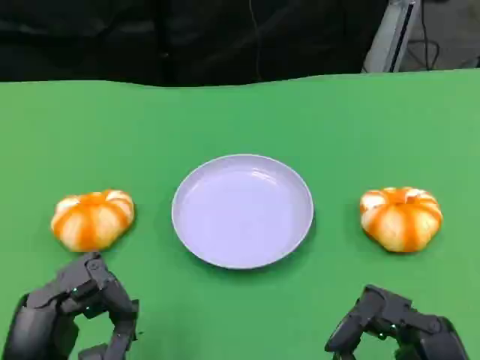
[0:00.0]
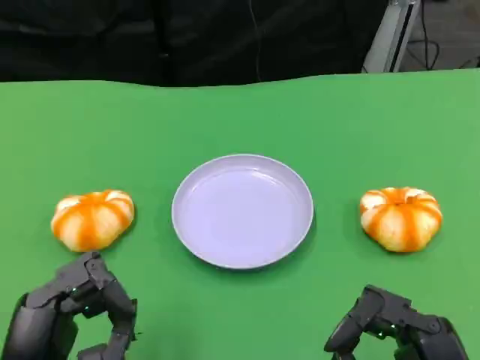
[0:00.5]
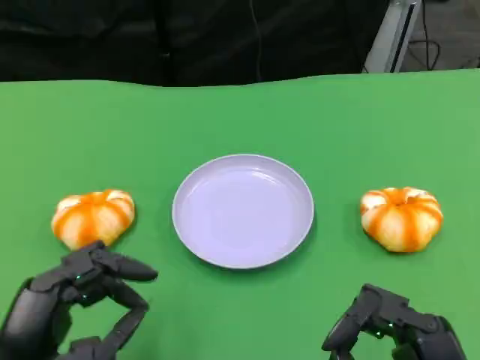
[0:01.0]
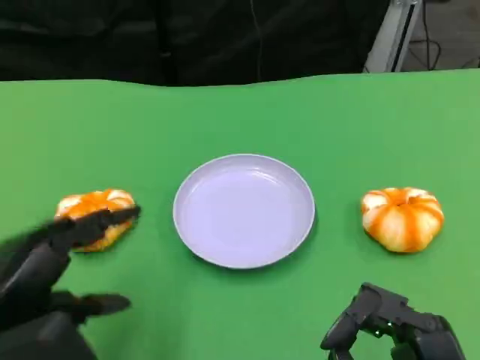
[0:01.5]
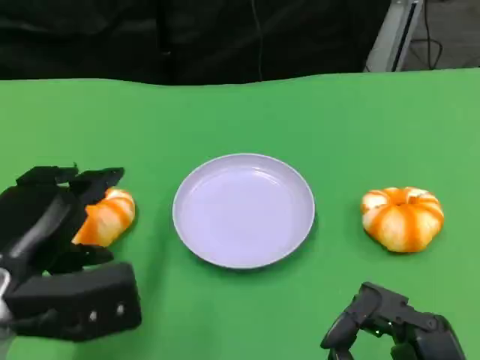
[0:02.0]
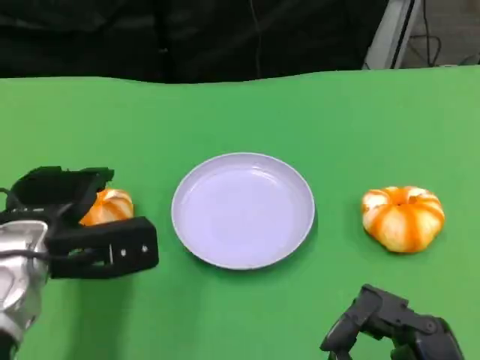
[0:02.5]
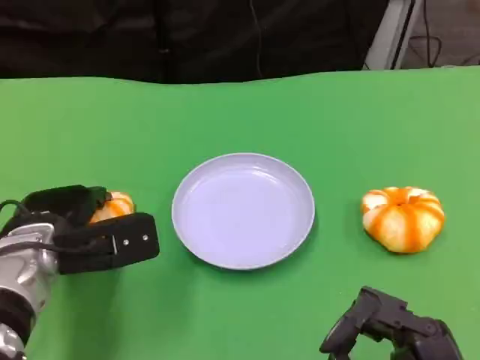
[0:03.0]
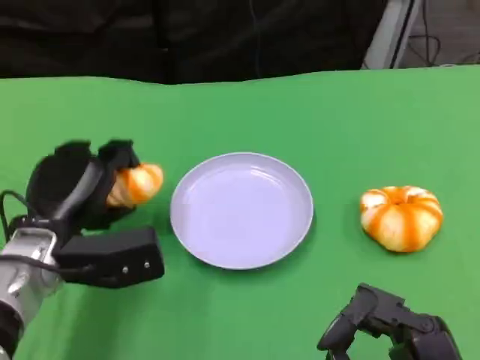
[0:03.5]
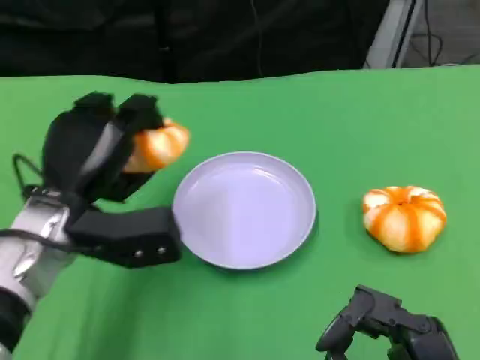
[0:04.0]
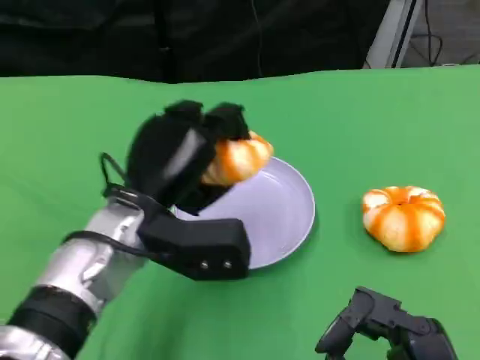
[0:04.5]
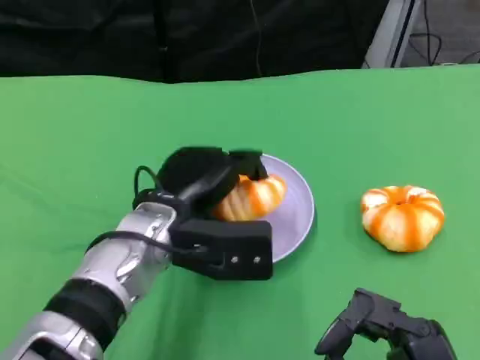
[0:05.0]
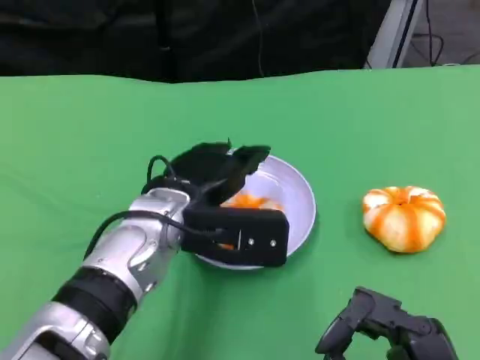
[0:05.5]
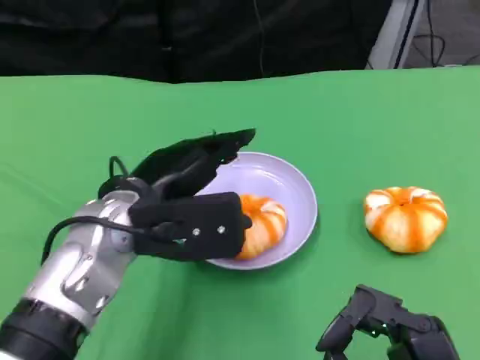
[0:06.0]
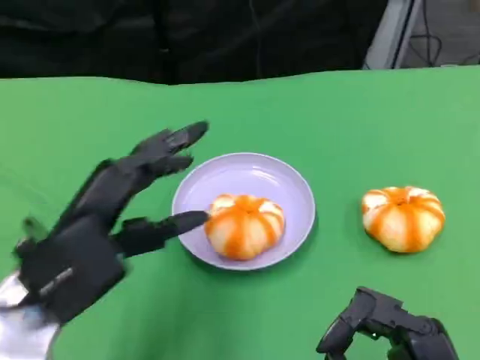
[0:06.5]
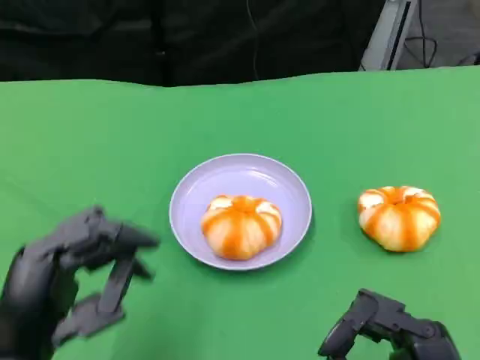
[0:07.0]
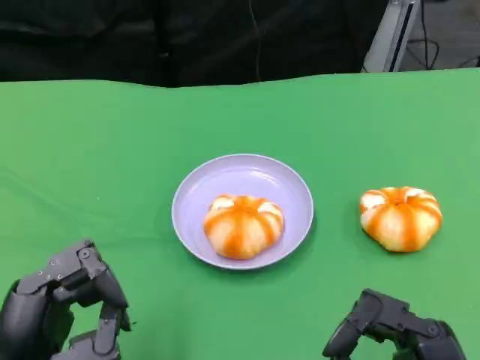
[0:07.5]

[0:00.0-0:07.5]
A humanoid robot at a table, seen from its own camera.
Task of the whole recording: Grasp the bread from the table and place it into the plate.
0:00.0 to 0:02.0: The left hand heads forward, covering roughly 10 cm.
0:02.0 to 0:04.0: The left hand shifts roughly 10 cm forward and to the right.
0:04.0 to 0:05.5: The left hand is displaced to the right by some 10 cm.
0:05.5 to 0:07.5: The left hand goes approximately 20 cm backward and to the left.

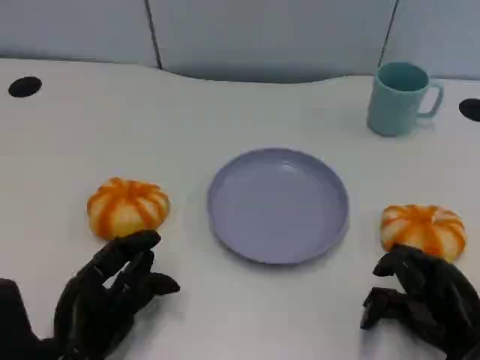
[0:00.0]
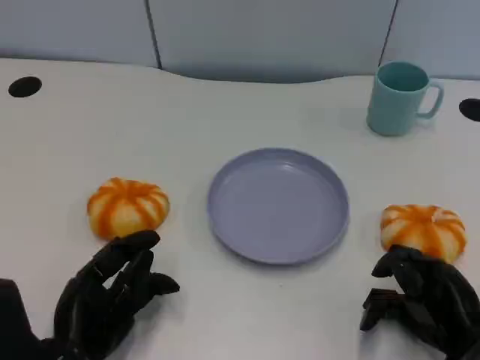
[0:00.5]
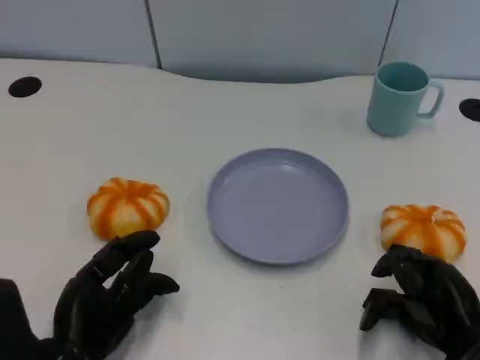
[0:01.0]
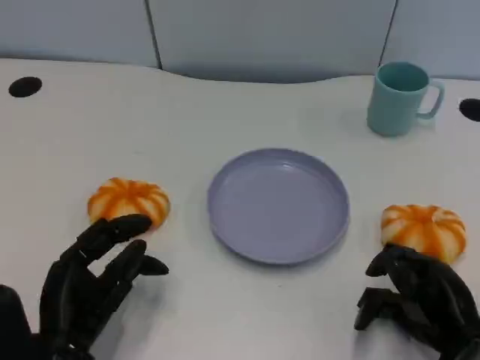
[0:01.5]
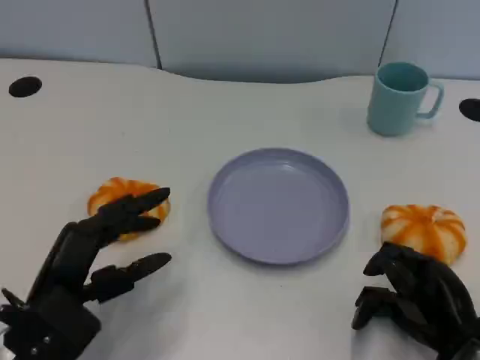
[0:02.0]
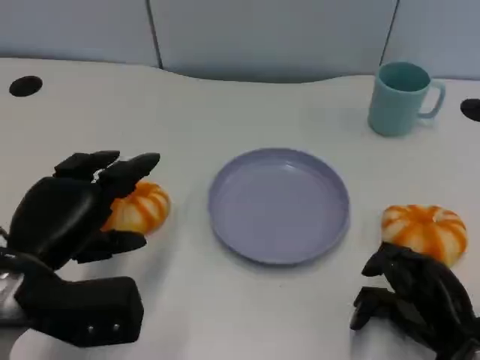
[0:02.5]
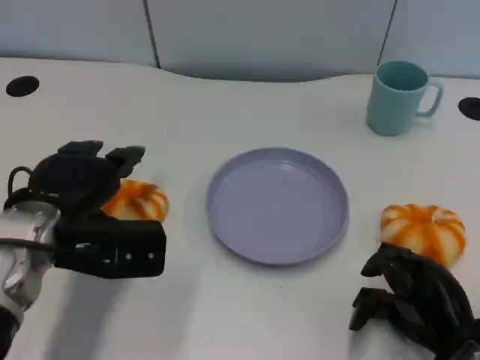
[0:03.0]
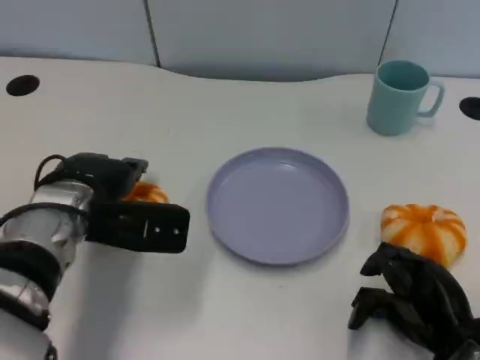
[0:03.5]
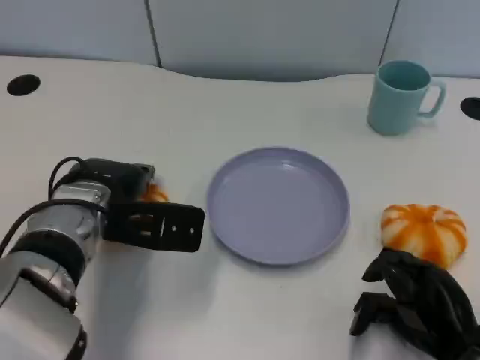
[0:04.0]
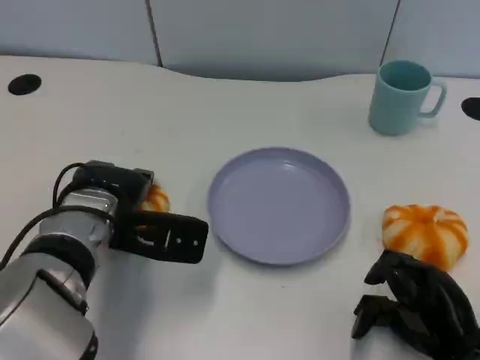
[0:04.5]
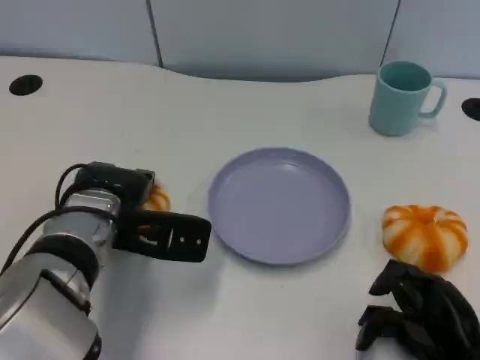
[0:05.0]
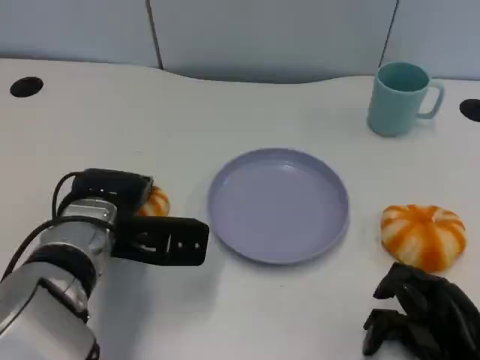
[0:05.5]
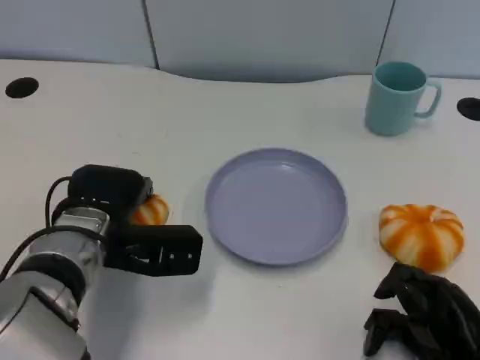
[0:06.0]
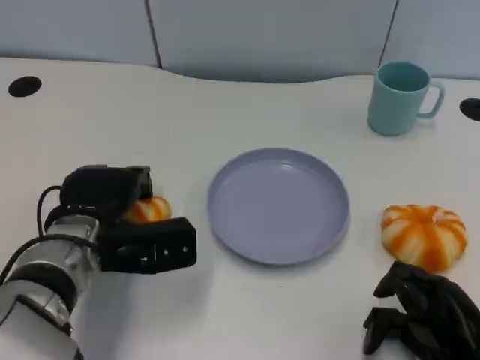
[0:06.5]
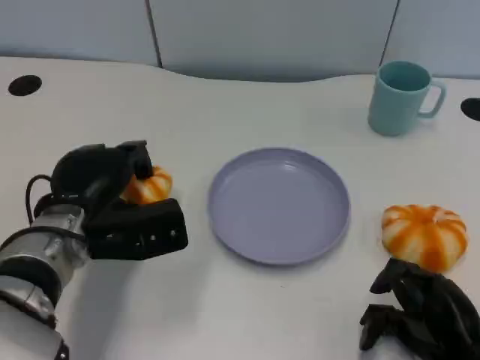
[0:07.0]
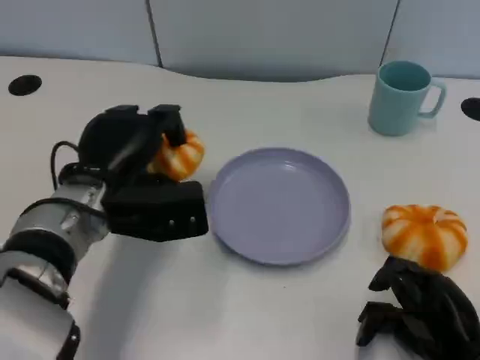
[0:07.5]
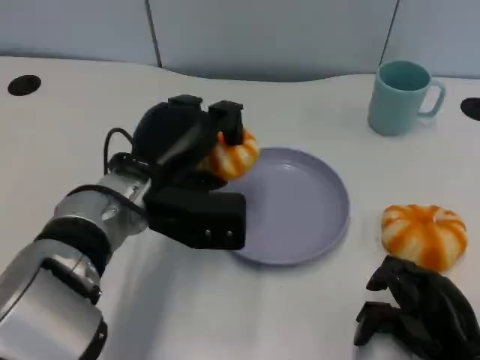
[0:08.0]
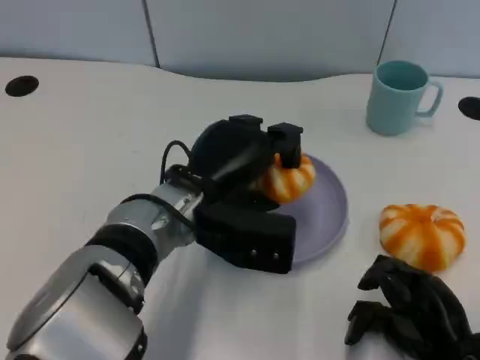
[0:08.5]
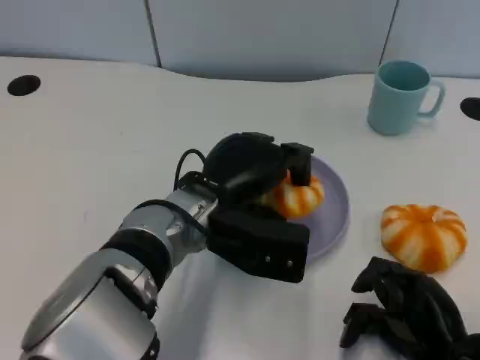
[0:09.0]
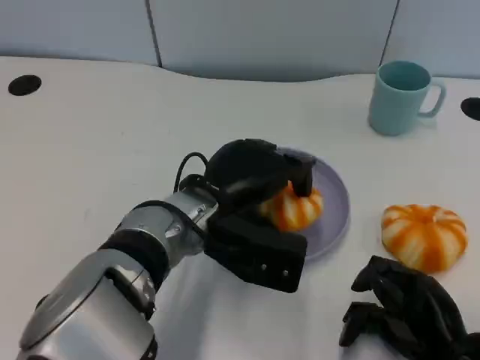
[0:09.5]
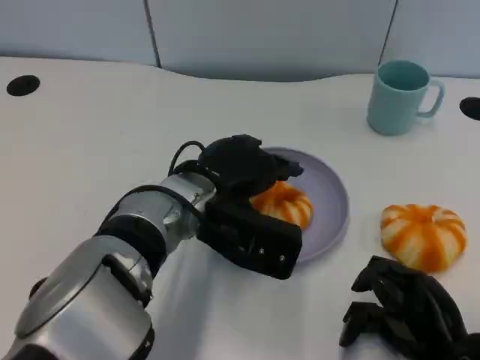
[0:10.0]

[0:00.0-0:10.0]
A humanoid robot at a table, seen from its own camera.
Task of the whole recording: Grasp the bread from the table and place it into the plate.
0:00.0 to 0:02.0: The left hand changes place by some 5 cm.
0:02.0 to 0:04.0: The left hand travels forward and to the right by some 15 cm.
0:04.0 to 0:06.0: The hands move only a little.
0:06.0 to 0:08.0: The left hand moves to the right, about 5 cm.

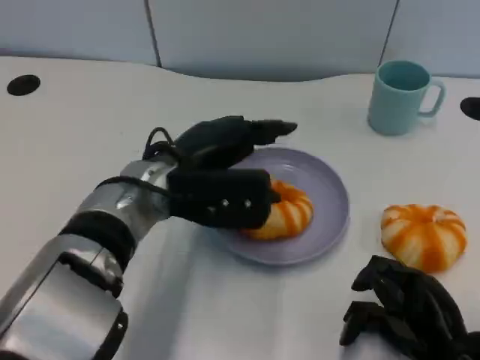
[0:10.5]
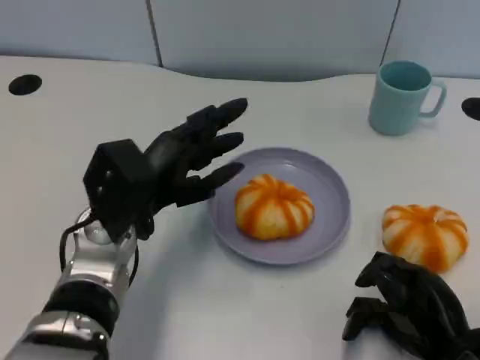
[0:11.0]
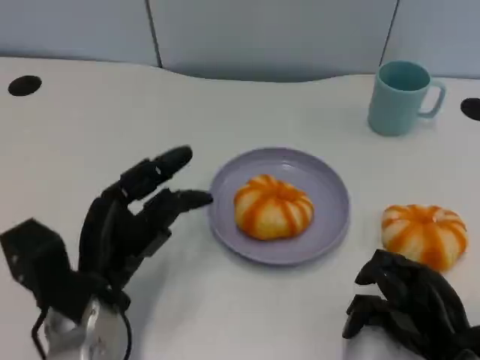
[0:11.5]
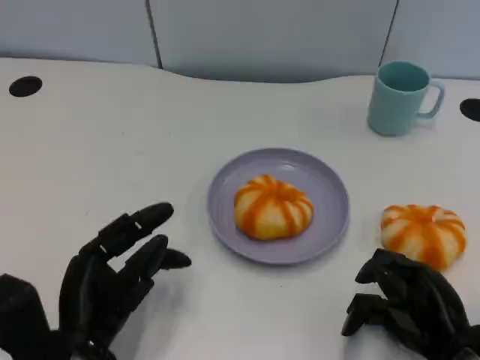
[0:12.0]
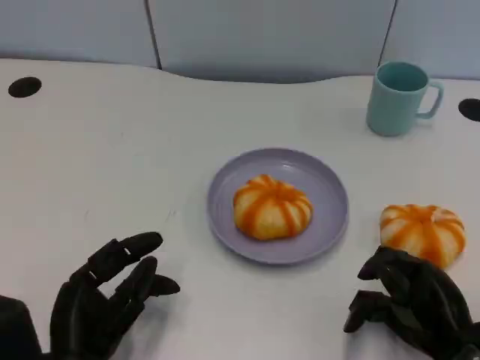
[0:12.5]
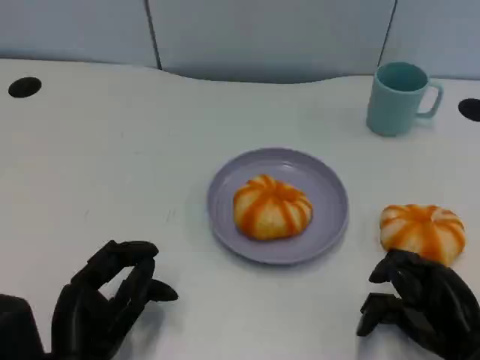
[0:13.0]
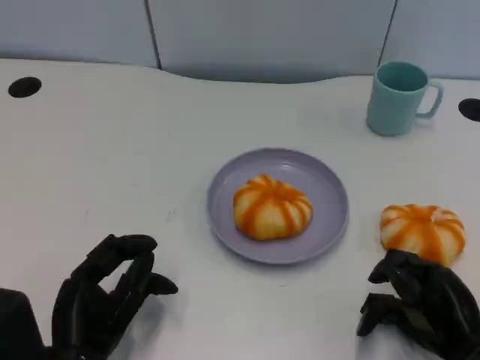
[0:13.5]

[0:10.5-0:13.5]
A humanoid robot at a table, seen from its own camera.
Task of the whole recording: Grasp the bread from the table and place it into the plate.
0:10.5 to 0:12.0: The left hand goes some 20 cm backward, downward and to the left.
0:12.0 to 0:13.5: The hands move only a little.

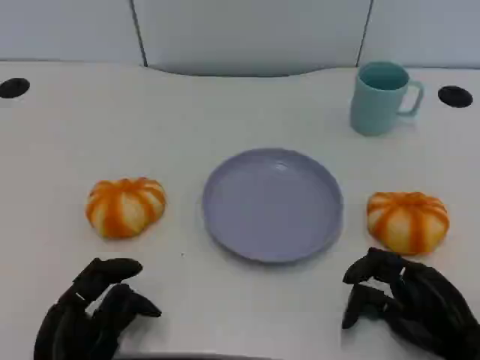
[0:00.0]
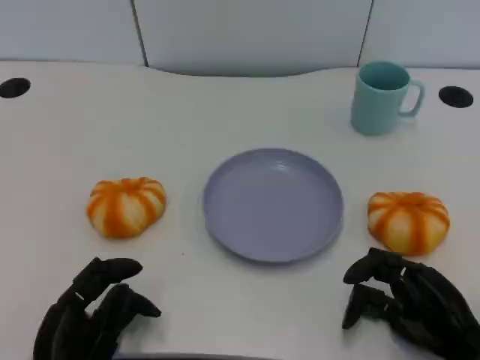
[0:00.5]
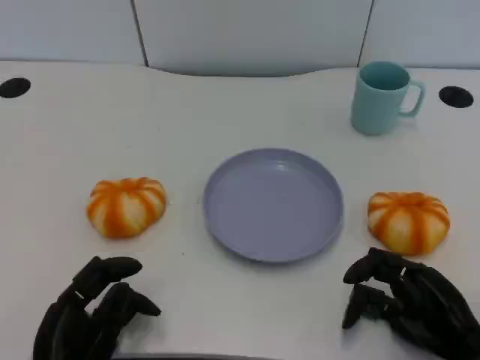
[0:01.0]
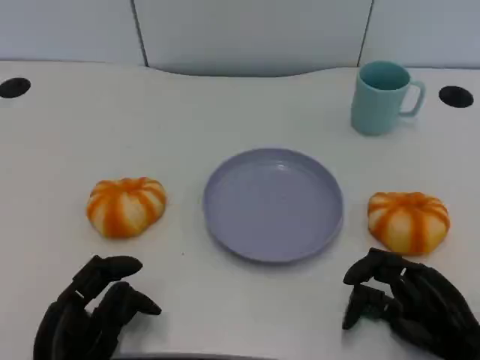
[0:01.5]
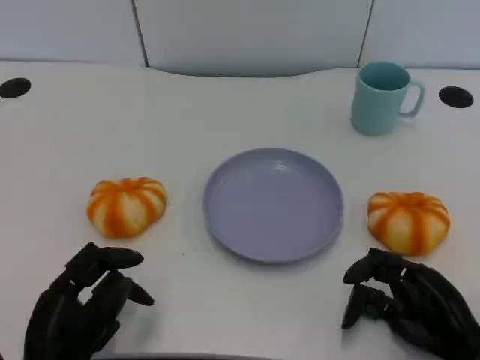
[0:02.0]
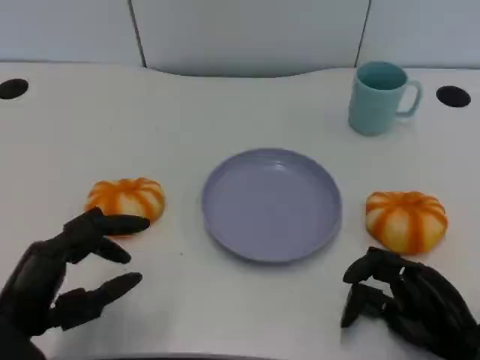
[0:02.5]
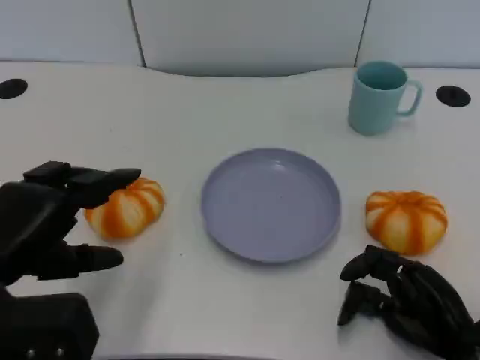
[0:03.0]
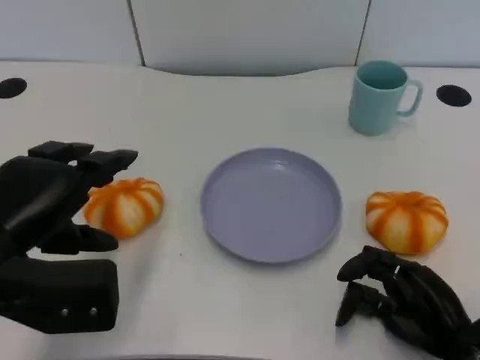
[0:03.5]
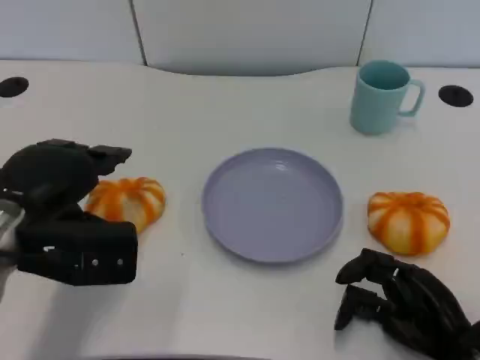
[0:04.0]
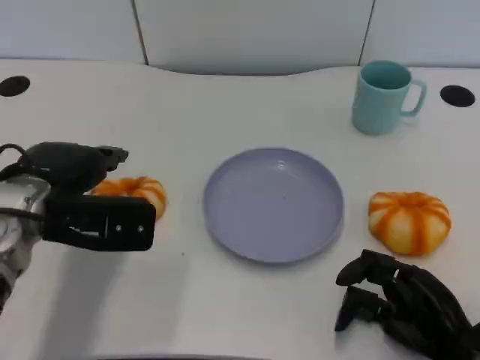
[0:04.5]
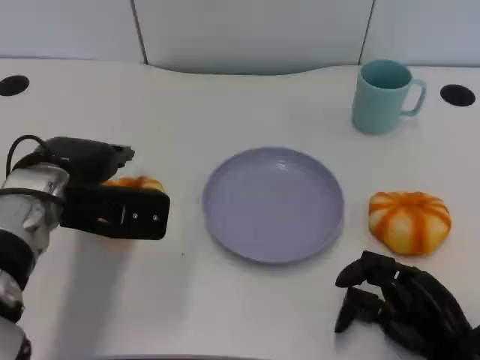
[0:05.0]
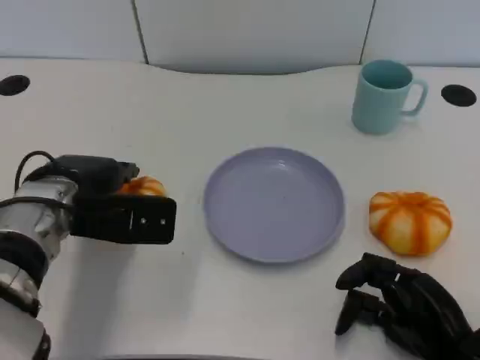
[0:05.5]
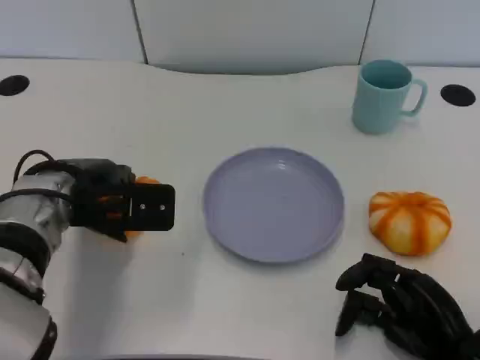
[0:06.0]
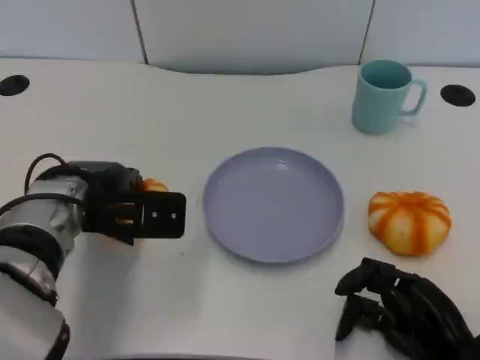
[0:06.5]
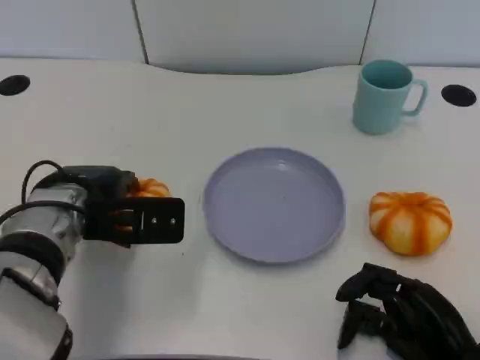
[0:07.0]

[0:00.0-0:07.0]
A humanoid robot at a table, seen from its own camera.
Task of the whole recording: Grasp the bread from the table and place it into the plate.
0:00.0 to 0:02.0: There are only small adjustments of the hands.
0:02.0 to 0:03.5: The left hand is displaced upward and forward by about 15 cm.
0:03.5 to 0:05.0: The left hand goes about 10 cm forward.
0:05.0 to 0:07.0: The hands stay close to where they were, moving slightly.
